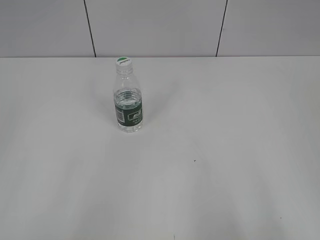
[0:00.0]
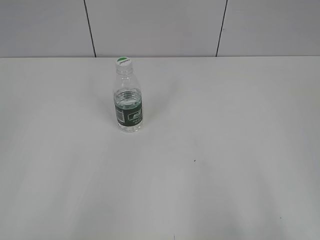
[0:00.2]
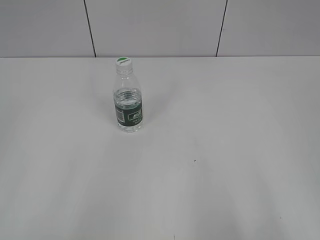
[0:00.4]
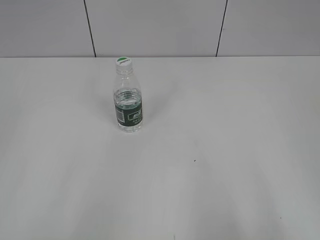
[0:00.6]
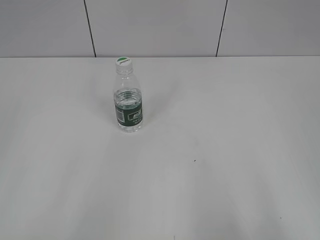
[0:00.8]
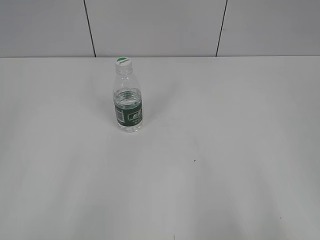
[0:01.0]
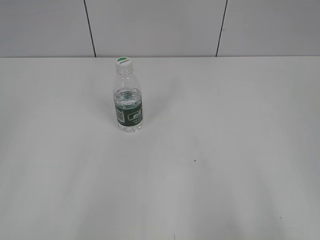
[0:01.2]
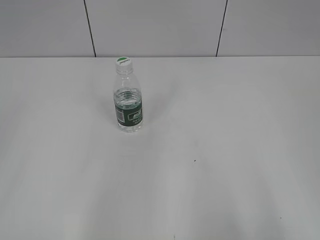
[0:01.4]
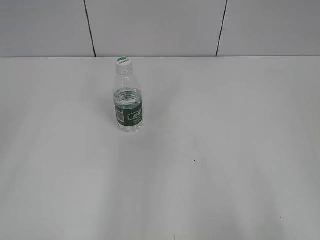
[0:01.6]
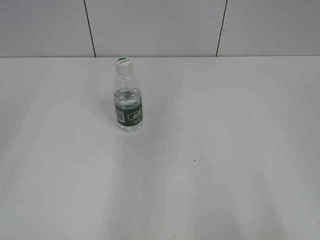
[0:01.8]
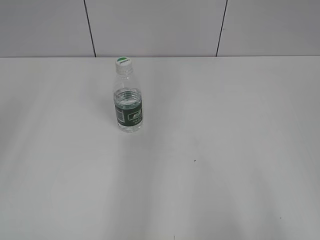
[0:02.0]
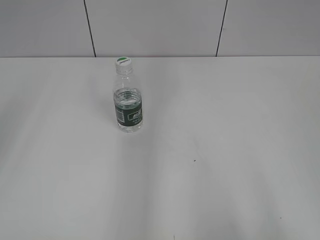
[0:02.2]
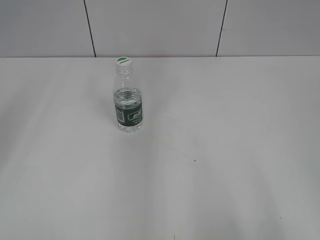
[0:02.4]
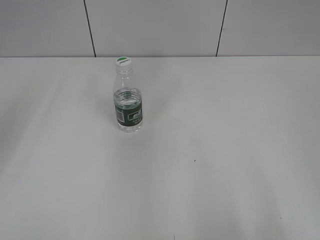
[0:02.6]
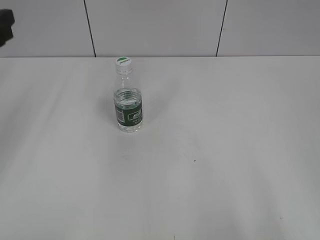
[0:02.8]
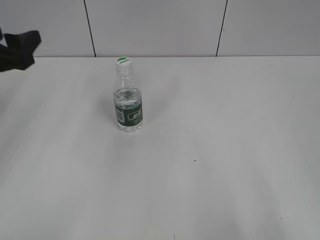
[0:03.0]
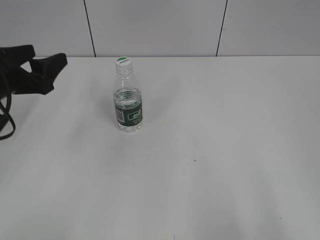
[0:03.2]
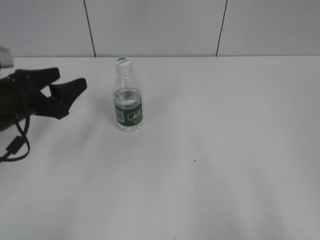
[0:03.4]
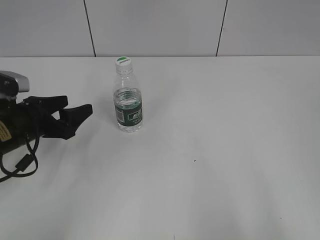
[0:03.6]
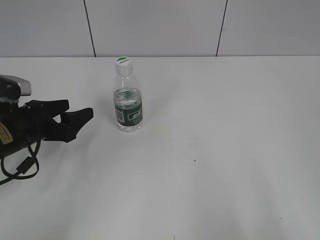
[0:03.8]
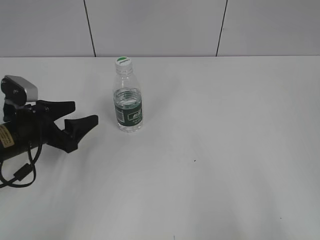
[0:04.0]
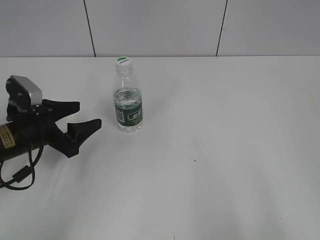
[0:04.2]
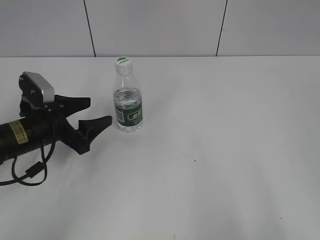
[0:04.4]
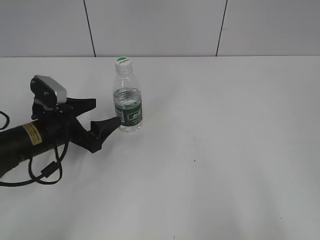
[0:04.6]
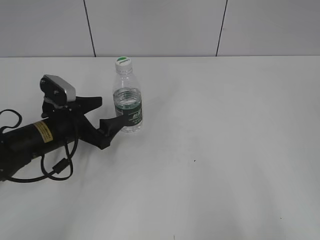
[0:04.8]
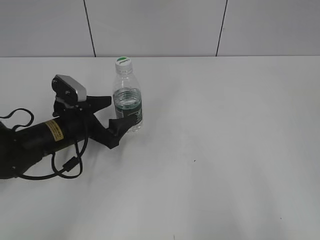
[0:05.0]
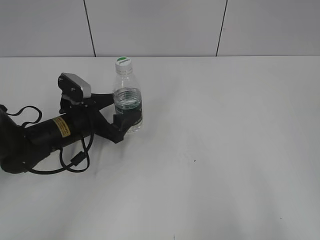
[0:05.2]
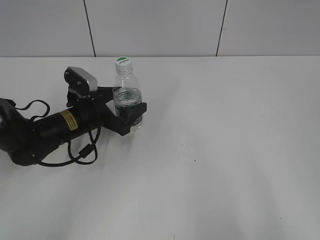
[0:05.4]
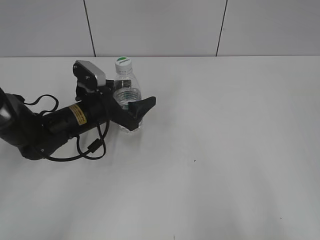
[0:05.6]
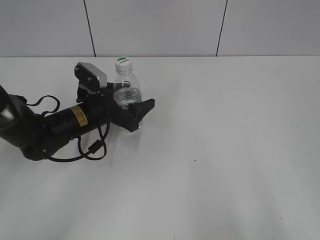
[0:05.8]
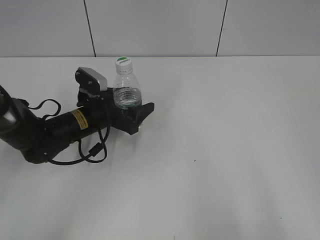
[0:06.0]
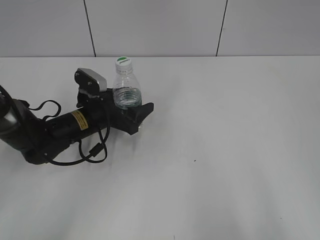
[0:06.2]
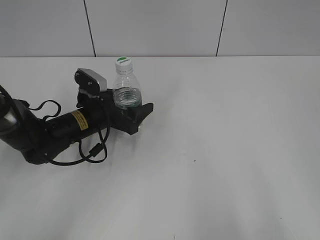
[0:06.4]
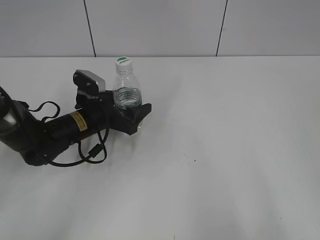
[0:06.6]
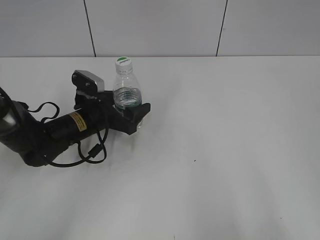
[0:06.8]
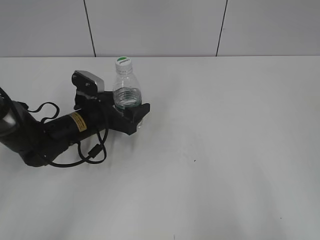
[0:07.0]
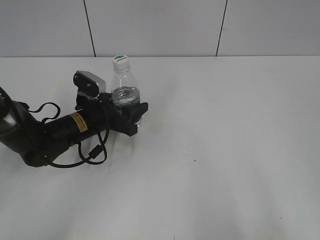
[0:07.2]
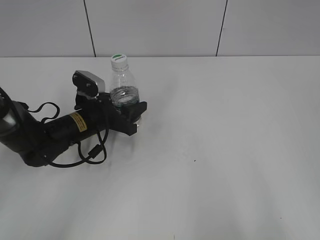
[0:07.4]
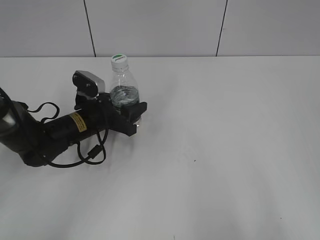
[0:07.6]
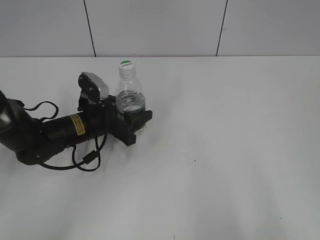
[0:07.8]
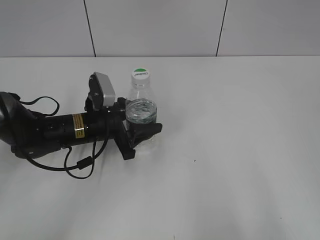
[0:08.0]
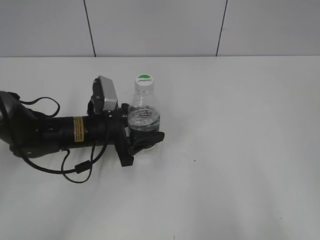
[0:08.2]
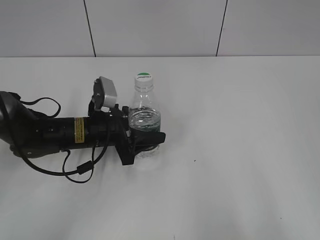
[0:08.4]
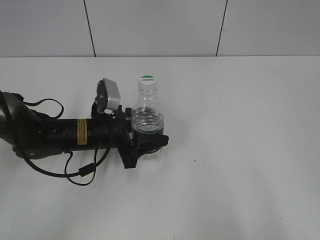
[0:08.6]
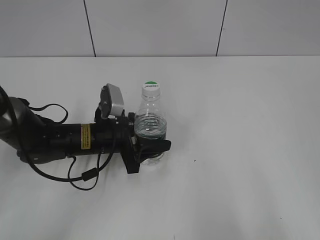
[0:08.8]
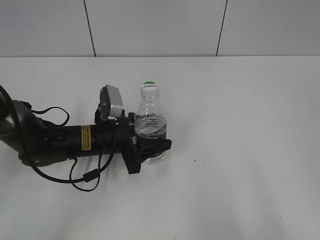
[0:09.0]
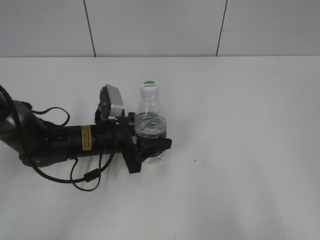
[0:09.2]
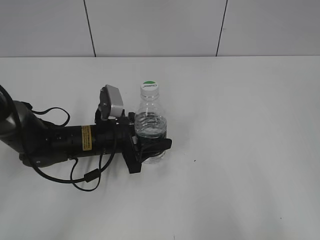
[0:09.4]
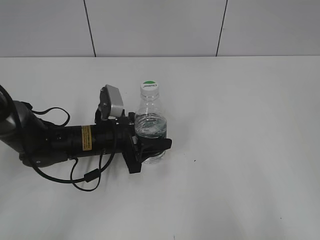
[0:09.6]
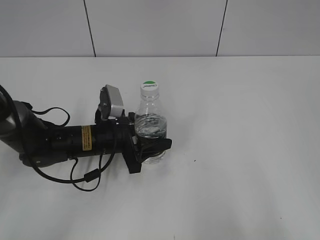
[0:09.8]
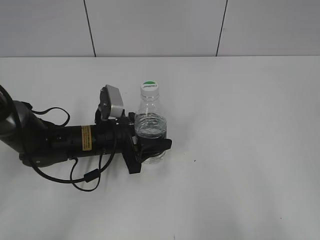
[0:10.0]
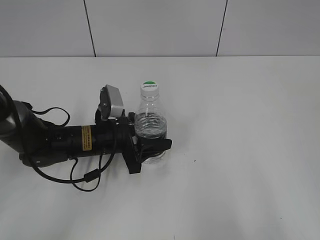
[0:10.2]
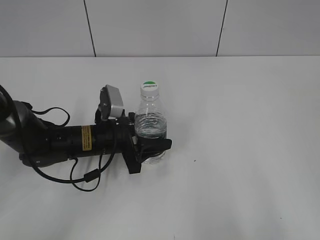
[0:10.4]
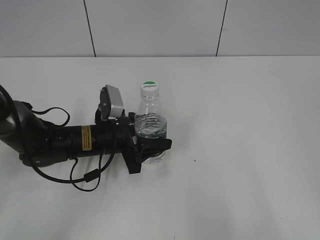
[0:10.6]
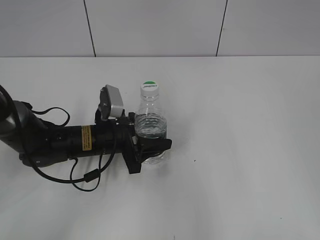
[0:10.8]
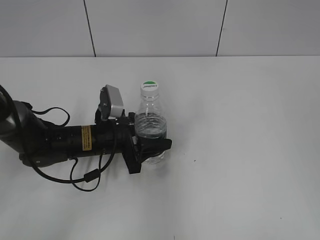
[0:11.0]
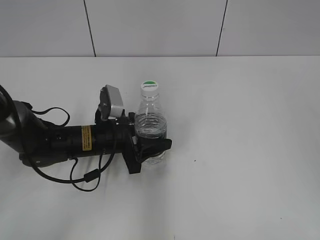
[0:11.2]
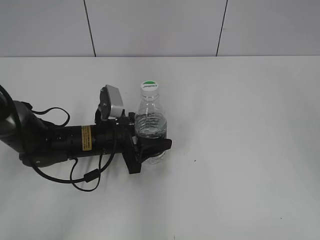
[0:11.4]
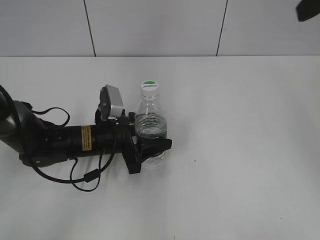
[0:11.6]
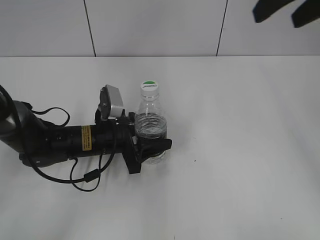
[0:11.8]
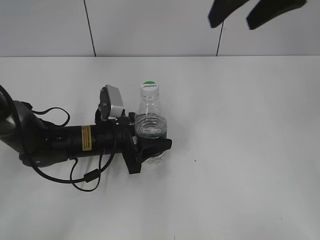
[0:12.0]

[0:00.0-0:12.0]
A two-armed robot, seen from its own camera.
Step, 0:00.0 to 0:07.4: Grasp the bottle and move it to the center of the table with the left gripper.
Step, 0:07.6 to 0:10.6: Lift the bottle and move it to the center of the table with the left gripper.
0:01.6 to 0:03.0: The left gripper heads forward and downward, covering some 25 cm.
0:03.0 to 0:04.4: The left gripper is displaced downward and to the right by about 15 cm.
0:04.4 to 0:06.0: The left gripper travels to the right and forward by about 10 cm.
0:06.0 to 0:07.6: The left gripper closes up.
0:07.6 to 0:09.0: The left gripper ends up some 5 cm from where it was.
0:09.0 to 0:10.4: Neither gripper changes place.
0:10.4 to 0:12.0: The right gripper goes roughly 35 cm forward and to the left.

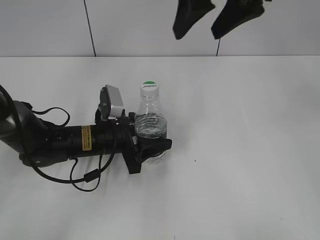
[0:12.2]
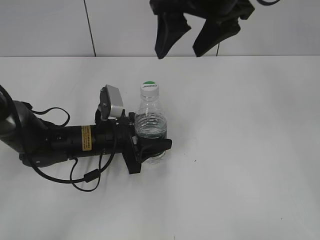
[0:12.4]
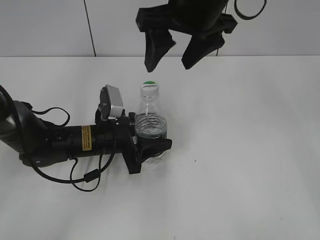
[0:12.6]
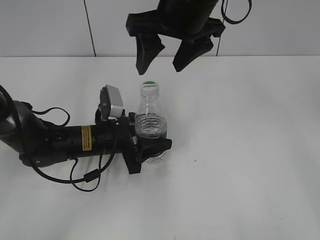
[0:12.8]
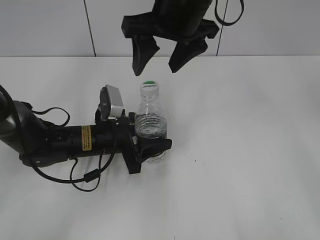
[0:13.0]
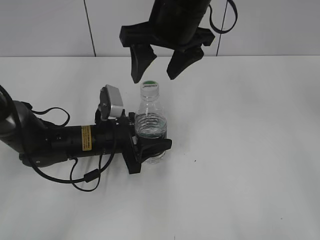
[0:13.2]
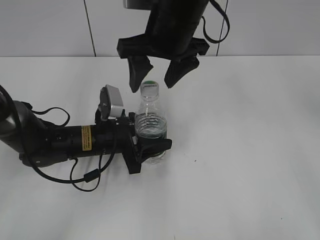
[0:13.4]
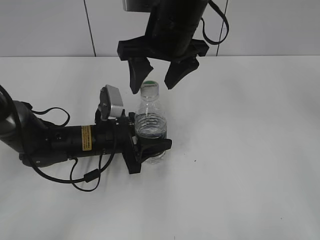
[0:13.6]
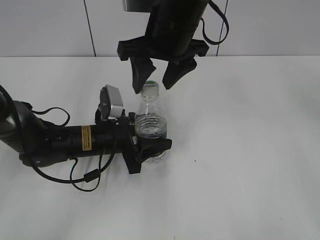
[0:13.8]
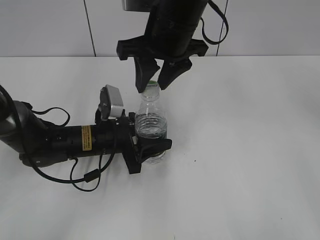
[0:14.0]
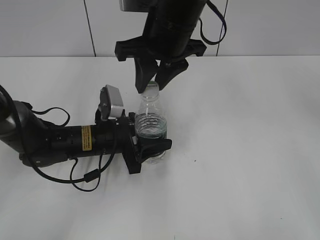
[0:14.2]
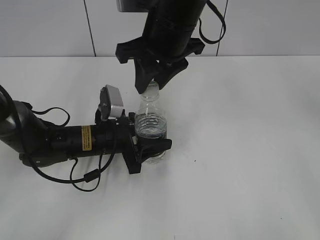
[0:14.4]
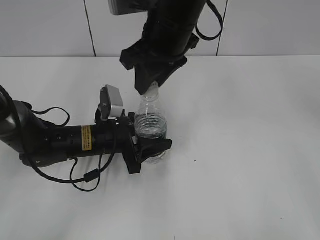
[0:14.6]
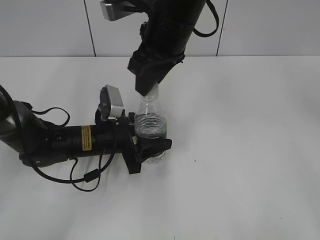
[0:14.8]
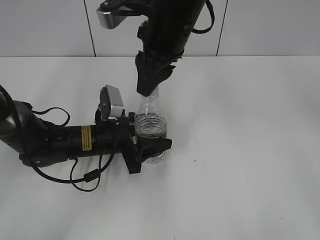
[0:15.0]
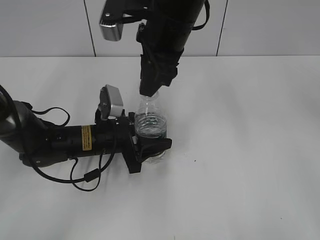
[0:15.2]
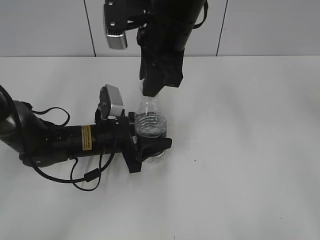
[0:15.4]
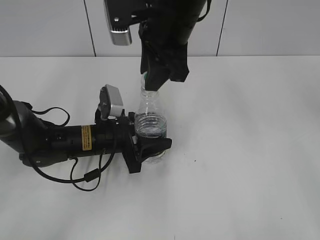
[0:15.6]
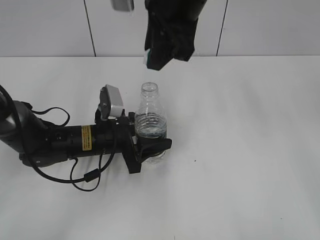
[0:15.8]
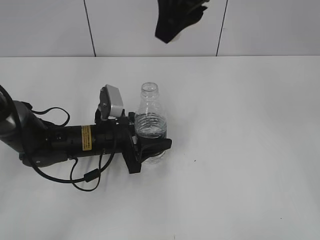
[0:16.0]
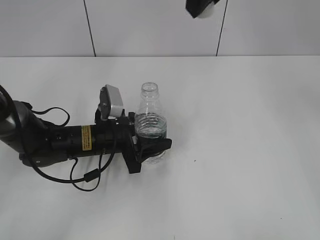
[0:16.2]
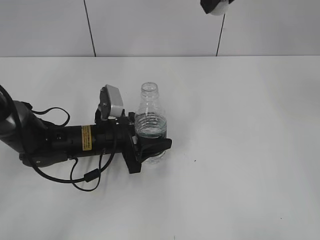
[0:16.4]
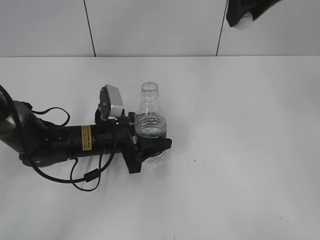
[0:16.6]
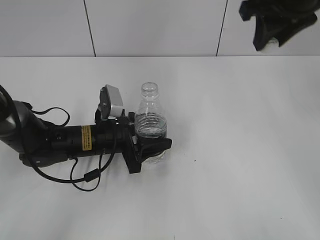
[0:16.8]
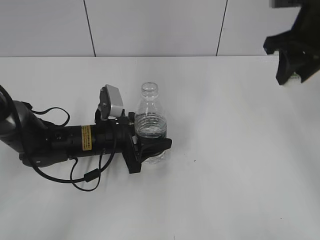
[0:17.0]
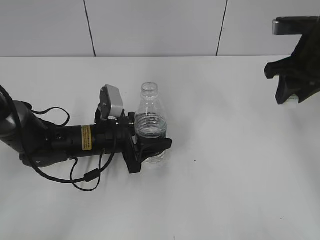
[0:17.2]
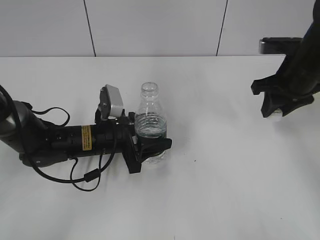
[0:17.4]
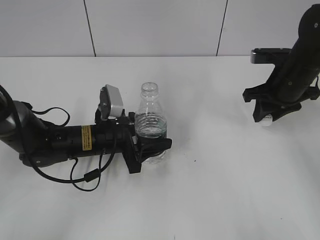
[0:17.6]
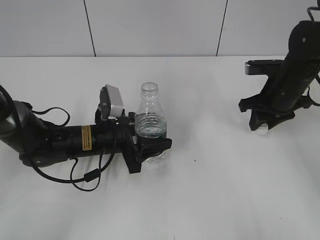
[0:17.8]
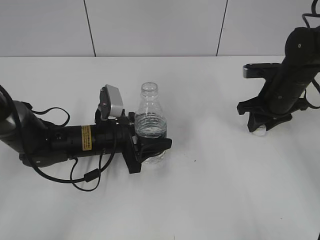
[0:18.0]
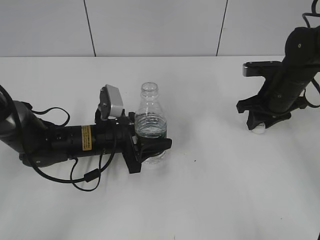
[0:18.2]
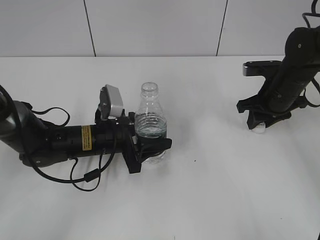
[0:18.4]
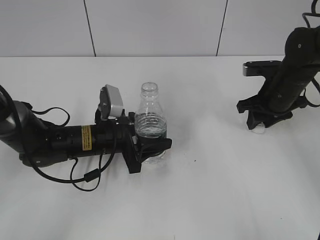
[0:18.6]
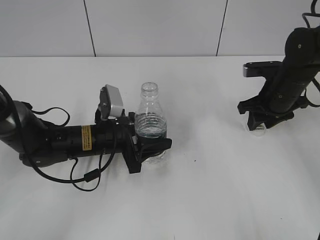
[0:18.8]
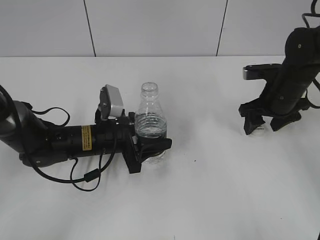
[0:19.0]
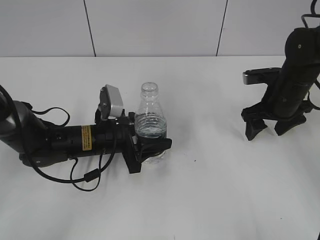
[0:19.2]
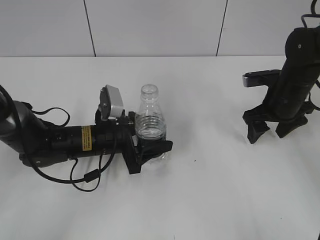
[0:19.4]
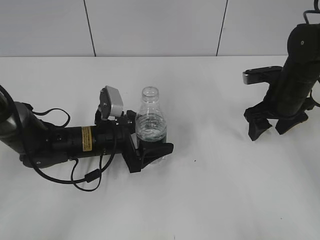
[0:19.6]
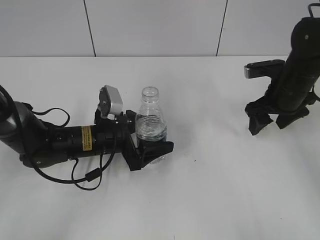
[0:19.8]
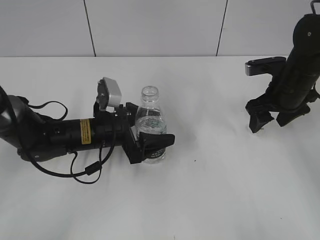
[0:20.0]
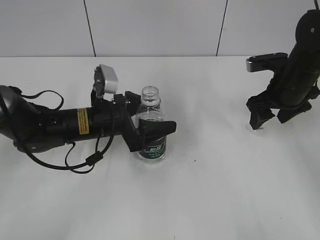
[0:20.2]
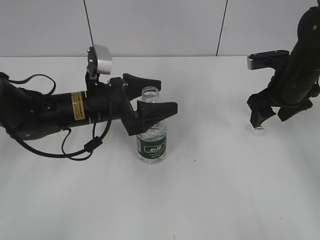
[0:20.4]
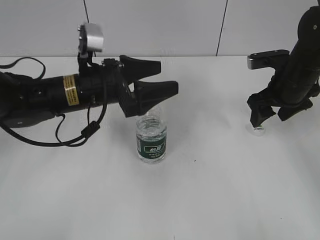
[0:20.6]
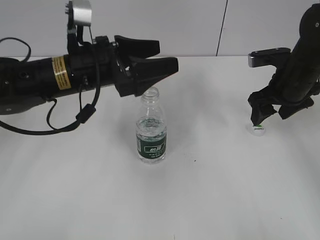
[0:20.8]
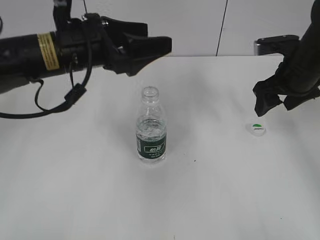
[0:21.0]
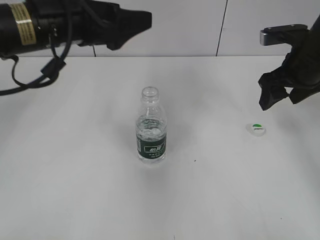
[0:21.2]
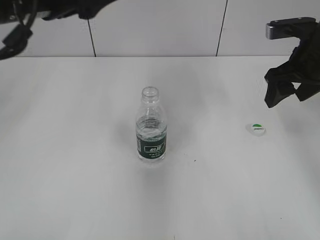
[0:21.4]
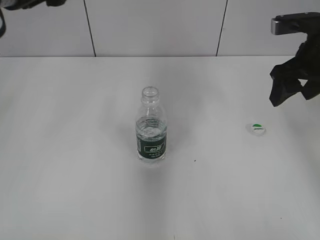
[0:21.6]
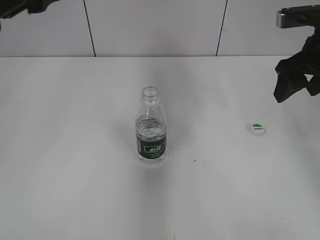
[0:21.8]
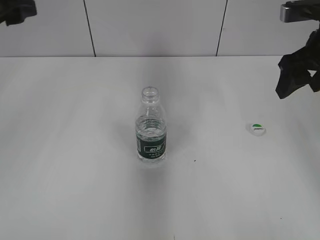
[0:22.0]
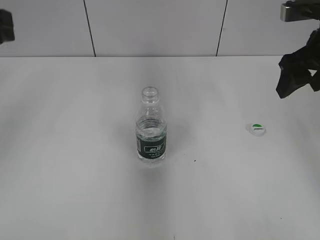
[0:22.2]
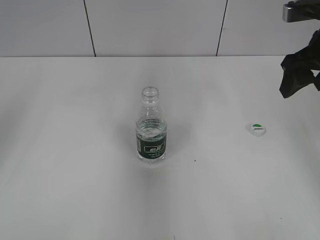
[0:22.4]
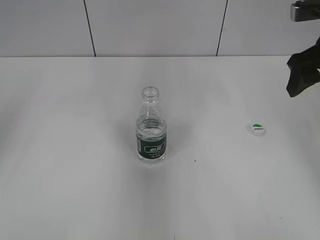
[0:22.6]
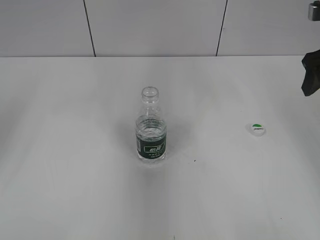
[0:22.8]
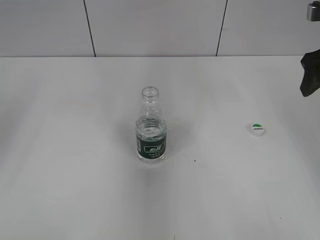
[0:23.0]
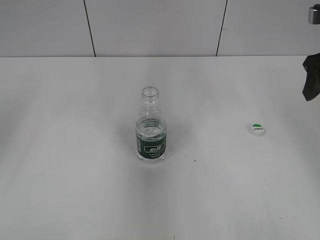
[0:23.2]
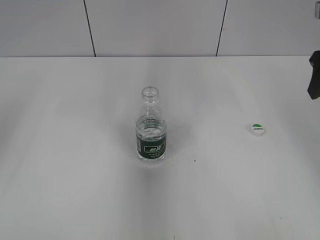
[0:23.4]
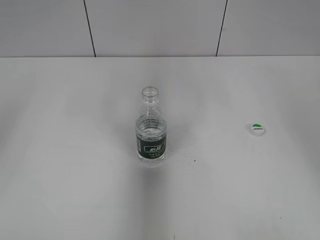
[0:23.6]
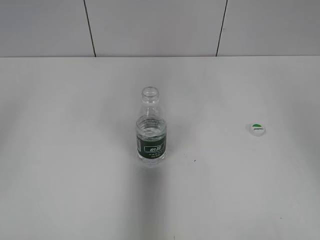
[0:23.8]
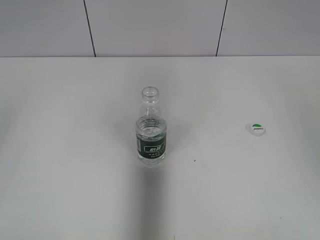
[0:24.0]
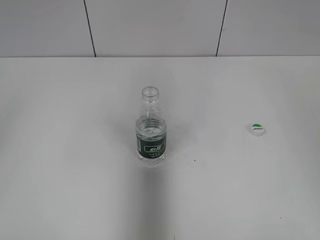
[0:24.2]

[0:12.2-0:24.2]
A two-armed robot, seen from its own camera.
Step, 0:12.2 to 0:15.8: Unscrew the bottle cap with the right gripper while holding the bottle with the left gripper.
Step, 0:16.0 to 0:19.0: Place the bottle cap on the table with the right gripper.
Step, 0:19.2 to 0:20.6: Place the bottle on the table with the left gripper.
0:12.2 to 0:13.8: The right gripper goes some 10 cm downward and to the left.
0:13.8 to 0:15.2: The right gripper closes.
0:15.2 to 0:16.6: The right gripper moves to the right and upward, approximately 15 cm.
0:16.6 to 0:18.2: The right gripper goes some 25 cm downward and to the right.
0:18.2 to 0:19.8: The right gripper opens up. Meanwhile the left gripper opens up.
0:19.8 to 0:21.2: The right gripper moves upward, about 10 cm. Meanwhile the left gripper goes approximately 20 cm upward.
0:21.2 to 0:22.6: The right gripper travels upward by roughly 5 cm, while the left gripper goes approximately 15 cm to the left.
0:22.6 to 0:24.2: The right gripper shifts roughly 20 cm backward and upward.
